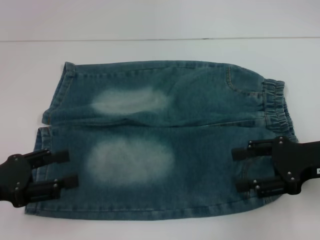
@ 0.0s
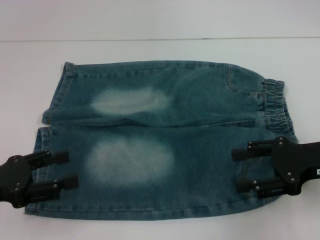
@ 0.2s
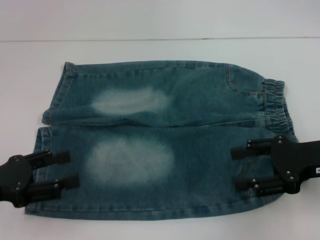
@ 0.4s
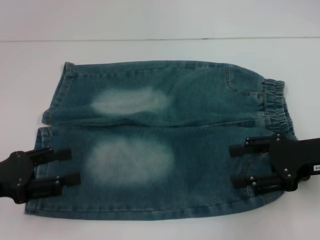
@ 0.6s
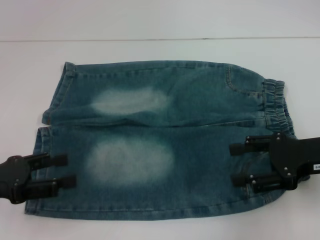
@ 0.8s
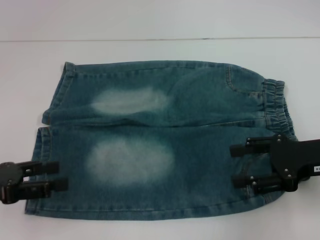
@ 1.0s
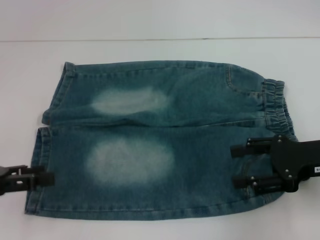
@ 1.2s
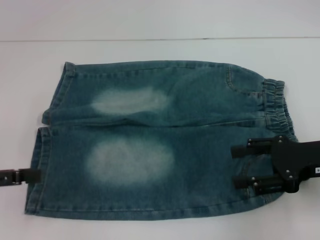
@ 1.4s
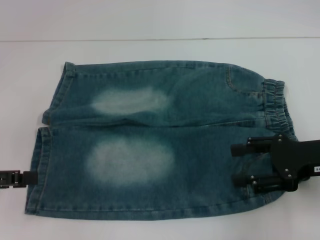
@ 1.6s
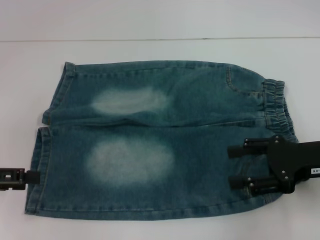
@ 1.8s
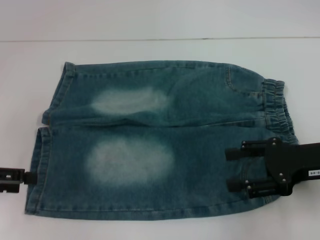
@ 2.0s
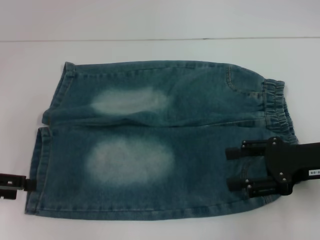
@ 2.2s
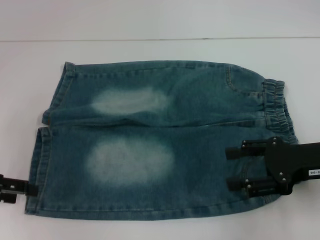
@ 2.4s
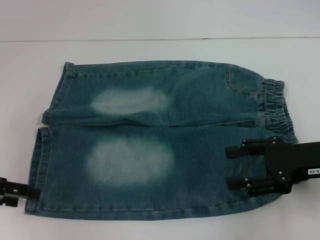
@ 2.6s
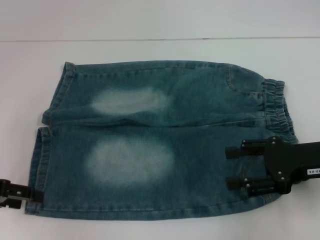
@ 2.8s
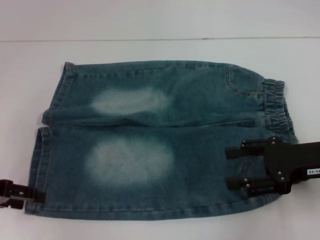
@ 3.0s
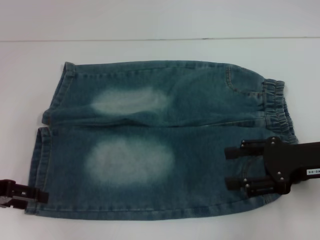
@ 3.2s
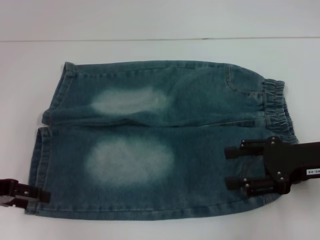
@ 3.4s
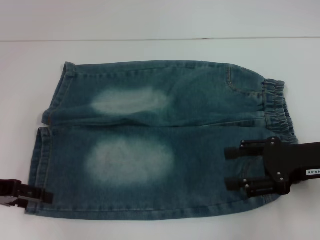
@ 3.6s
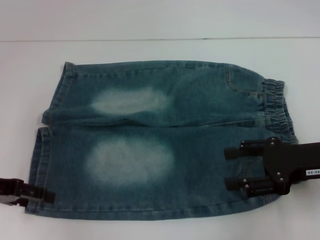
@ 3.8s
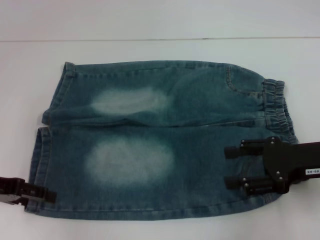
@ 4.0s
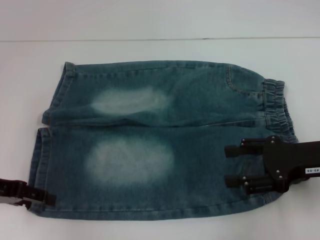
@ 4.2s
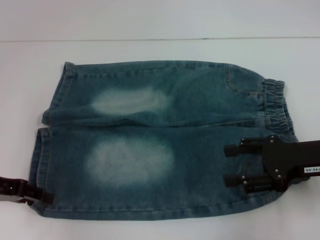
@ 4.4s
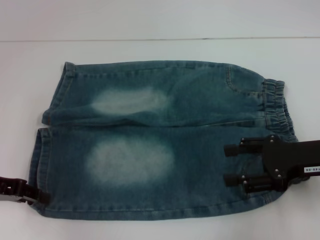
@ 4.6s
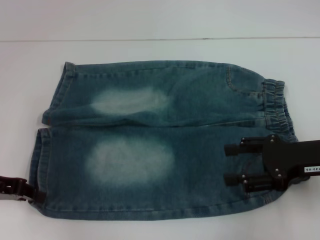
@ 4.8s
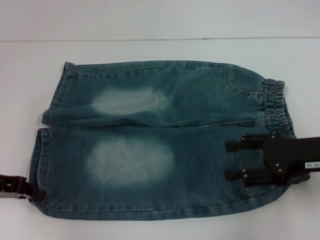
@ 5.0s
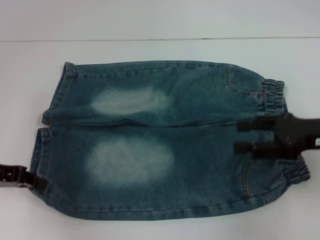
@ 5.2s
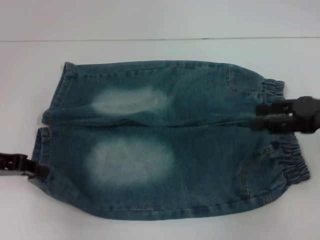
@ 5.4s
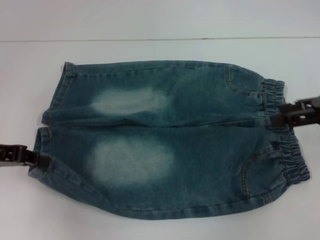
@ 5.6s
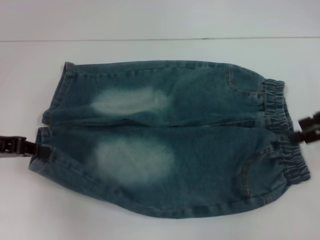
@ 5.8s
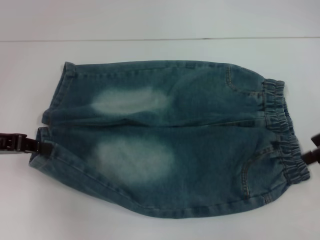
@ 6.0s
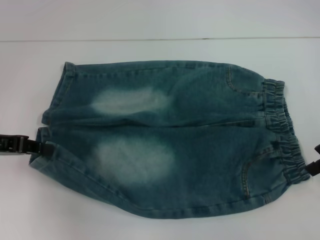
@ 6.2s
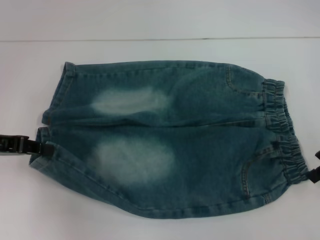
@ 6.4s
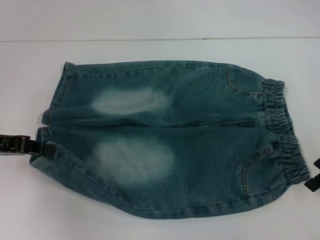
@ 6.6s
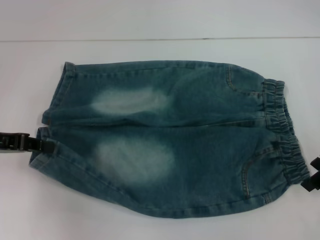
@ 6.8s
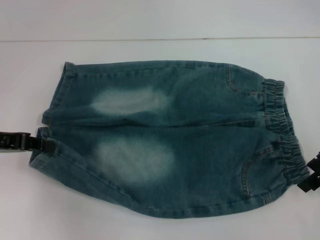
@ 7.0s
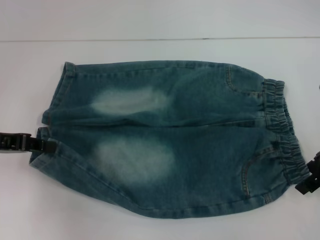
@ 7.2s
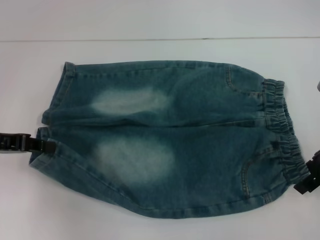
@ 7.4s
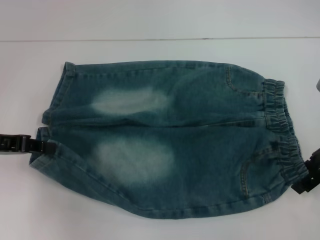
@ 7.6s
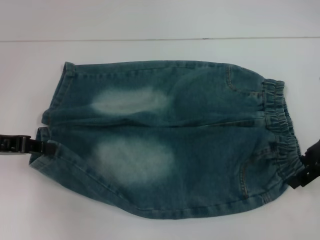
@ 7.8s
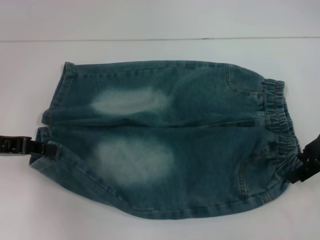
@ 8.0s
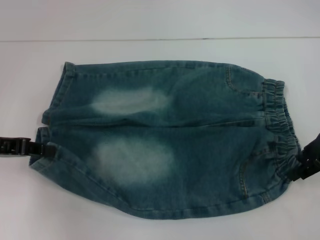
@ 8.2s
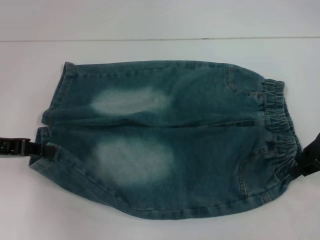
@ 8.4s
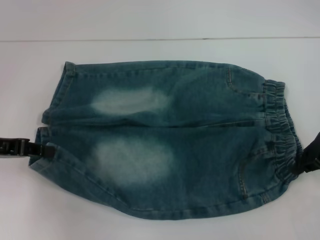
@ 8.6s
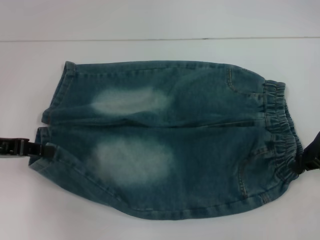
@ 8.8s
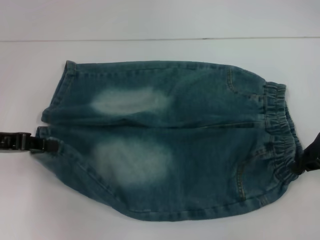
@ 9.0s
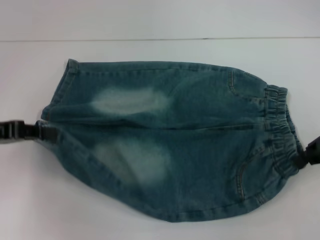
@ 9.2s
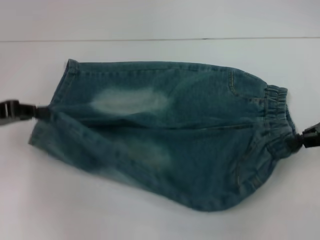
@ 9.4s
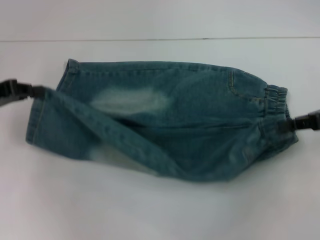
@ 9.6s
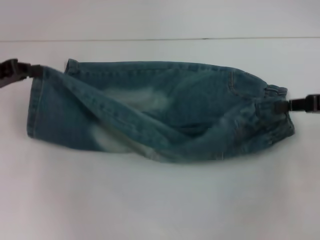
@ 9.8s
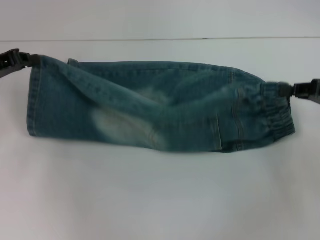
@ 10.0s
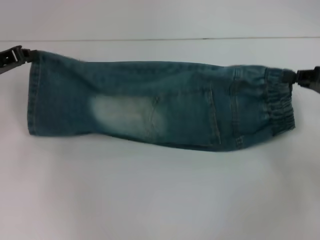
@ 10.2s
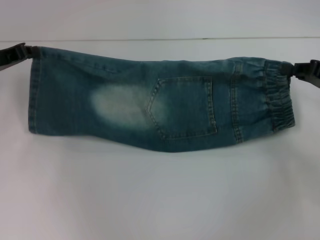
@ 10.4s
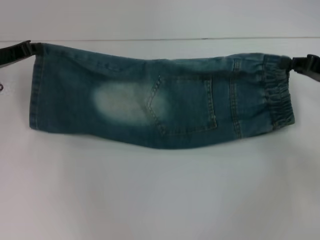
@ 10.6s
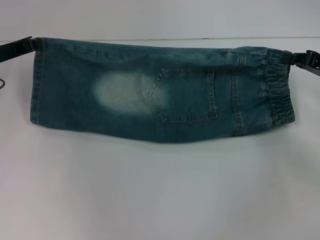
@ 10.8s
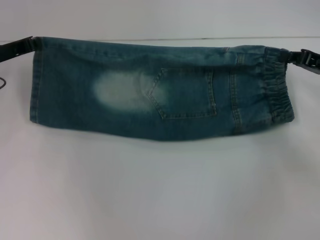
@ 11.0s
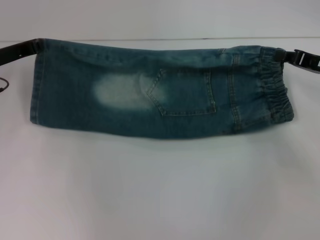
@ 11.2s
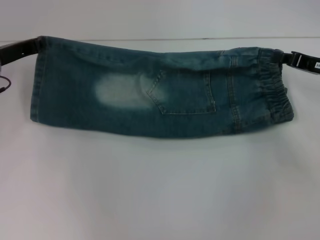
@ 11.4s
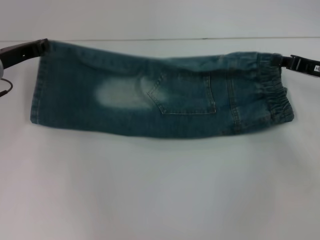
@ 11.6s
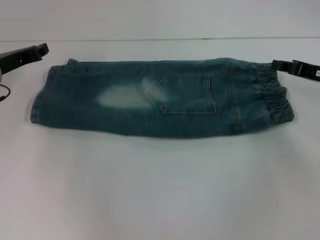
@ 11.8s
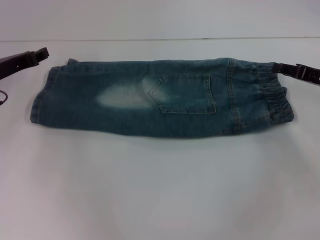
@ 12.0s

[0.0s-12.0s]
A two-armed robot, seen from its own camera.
Step, 0.0s to 5.0s: Grab the lower left pant leg with your left hand.
Step, 5.2s to 8.8s: Hold the lower right waistband with your right hand.
0.0s to 1.6s: The left gripper changes place by some 5 cm.
3.0s to 4.4s: The grippers stay close to where they were, moving slightly.
4.4s to 6.0s: The right gripper goes approximately 10 cm upward, to the right and forward. Meanwhile the left gripper closes.
6.0s to 7.6s: The right gripper ends up about 5 cm from where it was.
7.6s to 9.0s: The right gripper closes.
9.0s to 10.4s: The right gripper shifts approximately 5 cm to the right; the left gripper goes roughly 10 cm forward.
10.4s to 12.0s: The grippers stay close to where they were, moving slightly.

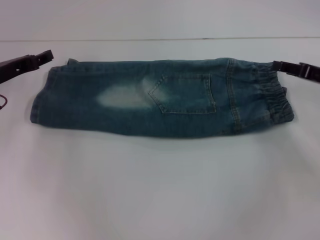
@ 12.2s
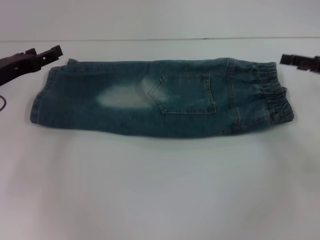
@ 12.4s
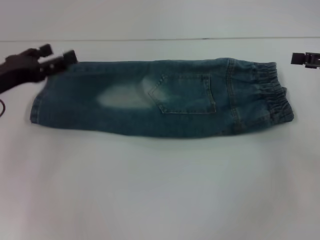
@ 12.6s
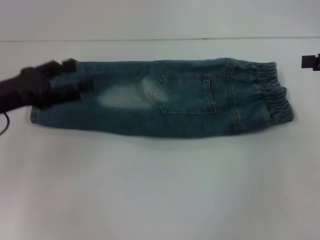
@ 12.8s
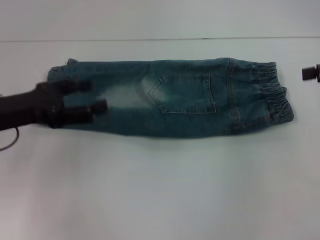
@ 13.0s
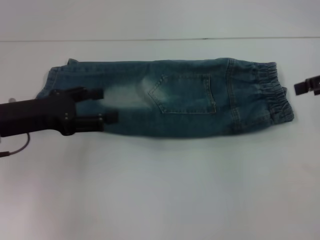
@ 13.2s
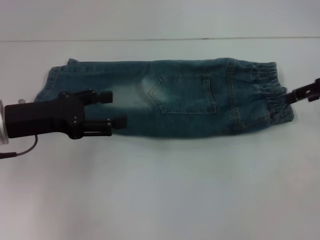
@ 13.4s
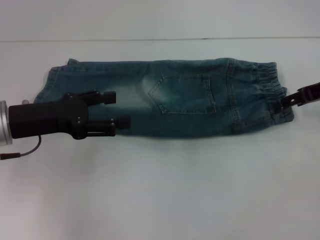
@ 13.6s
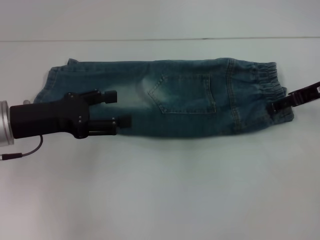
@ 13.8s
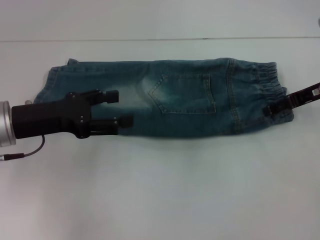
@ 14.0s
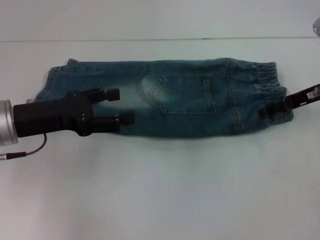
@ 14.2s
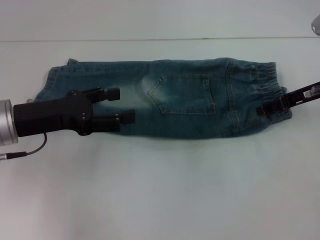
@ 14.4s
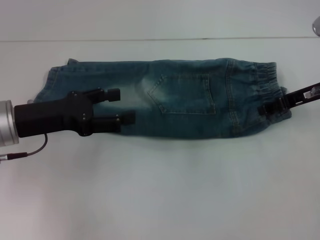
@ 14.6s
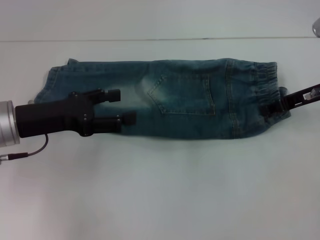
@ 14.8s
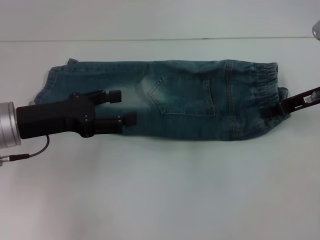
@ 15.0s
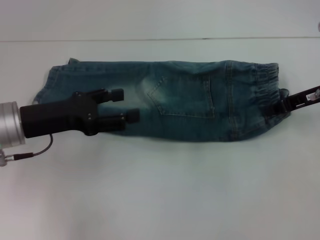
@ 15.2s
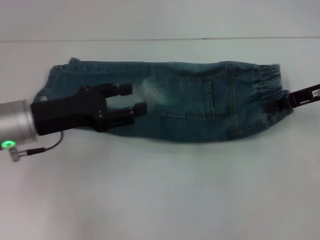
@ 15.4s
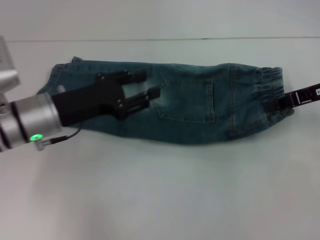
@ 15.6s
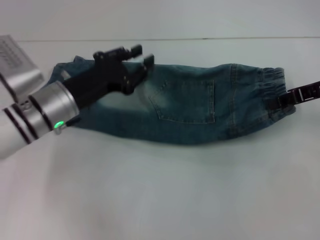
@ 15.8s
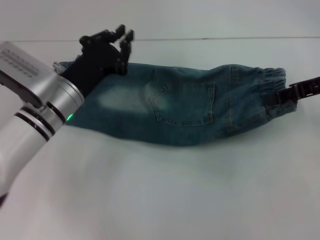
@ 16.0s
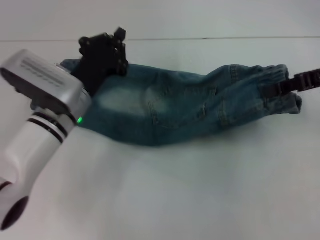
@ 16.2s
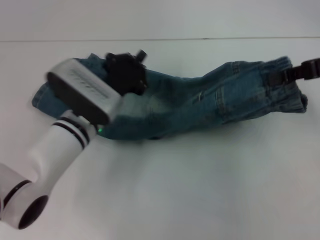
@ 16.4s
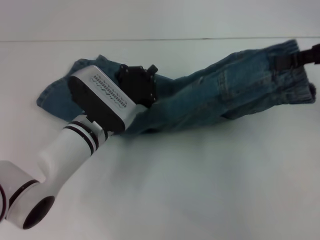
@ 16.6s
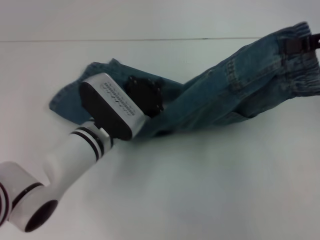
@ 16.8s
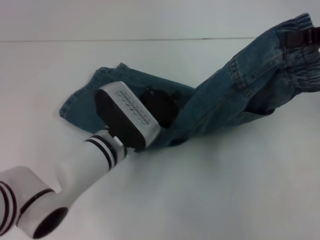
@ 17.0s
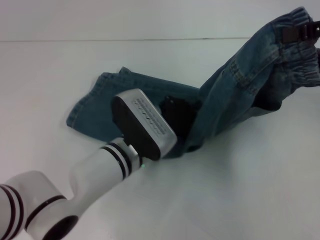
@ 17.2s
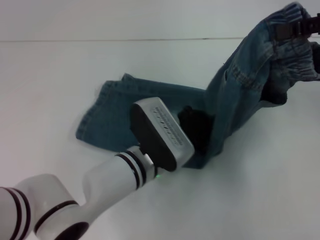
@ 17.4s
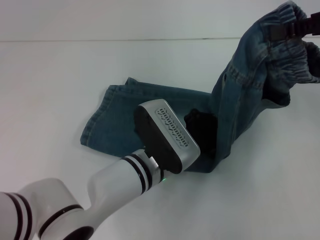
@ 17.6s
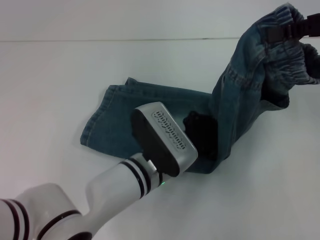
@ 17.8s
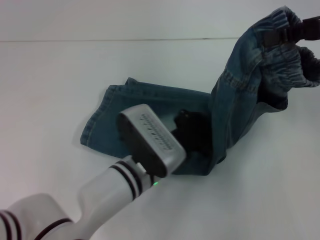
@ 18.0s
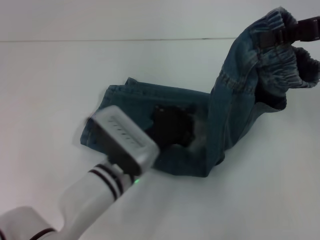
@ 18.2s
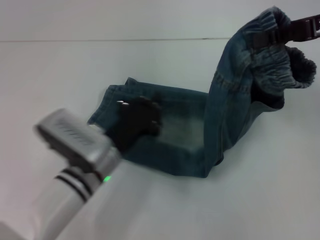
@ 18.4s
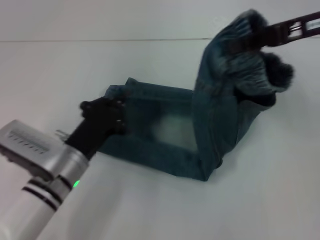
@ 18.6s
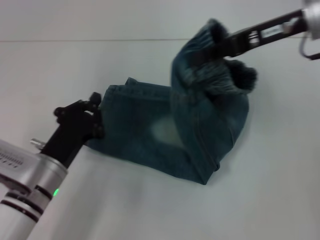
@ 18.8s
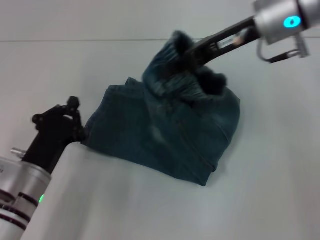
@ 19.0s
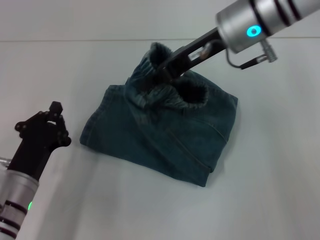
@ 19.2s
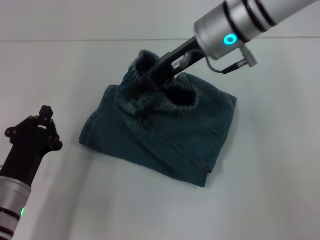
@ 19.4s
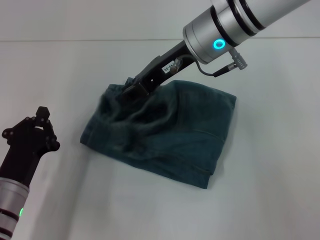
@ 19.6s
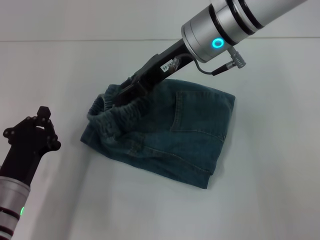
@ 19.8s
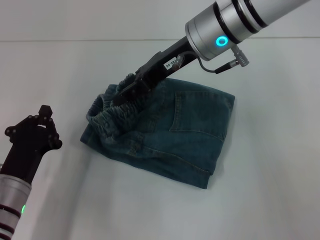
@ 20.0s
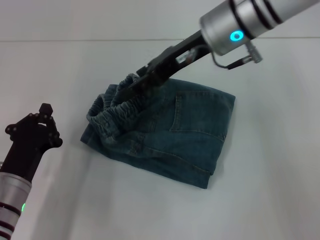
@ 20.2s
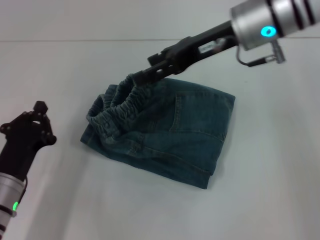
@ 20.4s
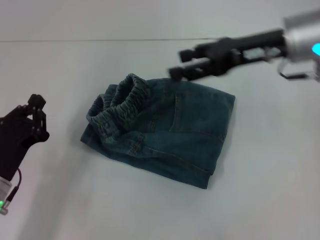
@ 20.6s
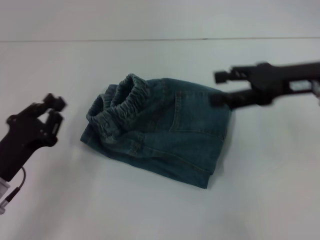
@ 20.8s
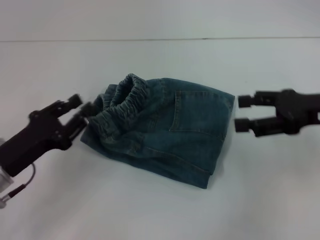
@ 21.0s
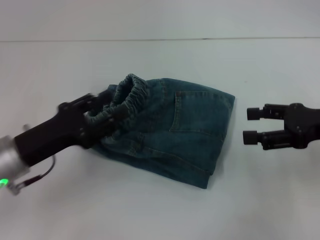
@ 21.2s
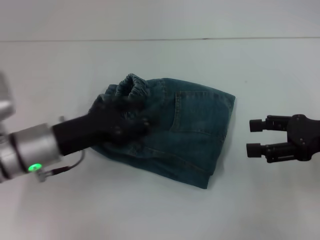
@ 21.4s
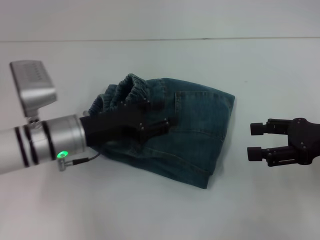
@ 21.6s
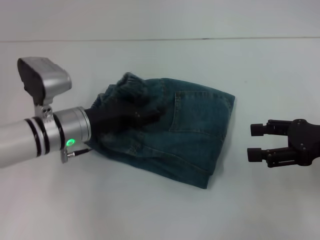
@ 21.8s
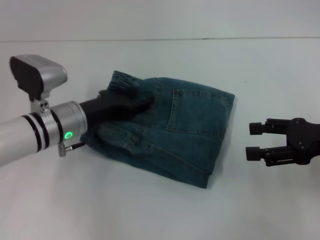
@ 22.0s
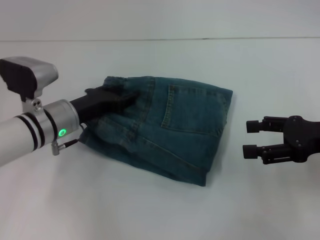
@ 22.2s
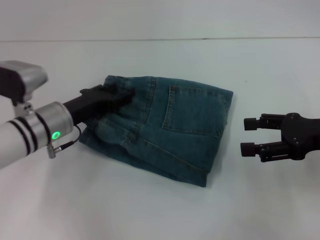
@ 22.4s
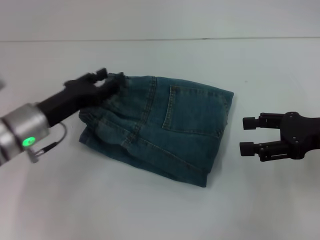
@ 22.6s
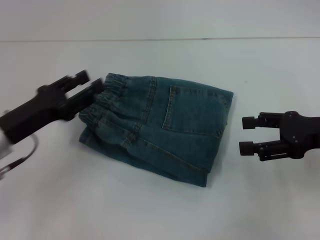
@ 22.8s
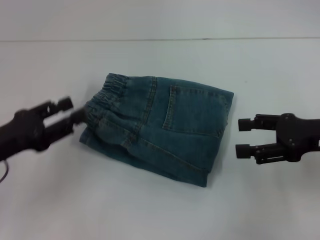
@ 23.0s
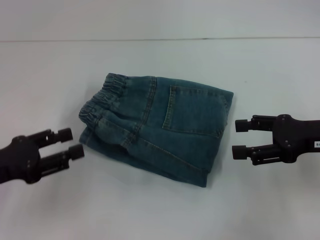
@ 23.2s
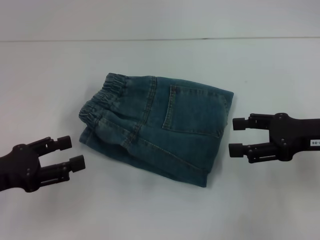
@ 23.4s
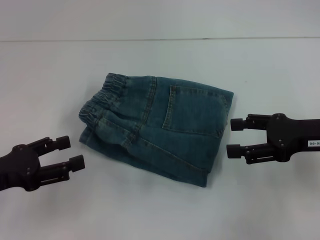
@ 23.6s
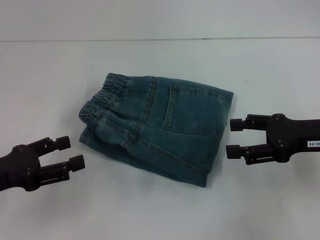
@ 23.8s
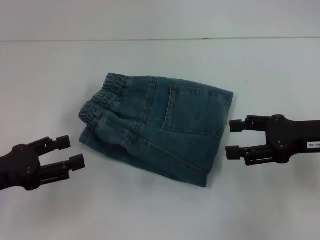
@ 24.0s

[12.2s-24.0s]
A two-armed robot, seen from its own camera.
Step, 12.4s to 15.0s: Grab the waistband with your right hand.
Step, 15.2s to 18.0s: Press the middle of the pants with your left hand.
Step, 18.2s to 20.6s: Fold to the left with your right hand.
Step, 20.8s to 22.8s: Adjust the pants with your left hand.
12.2s to 13.6s: The right gripper is displaced upward by about 5 cm, while the left gripper shifts about 10 cm backward, and opens up.
13.6s to 15.2s: The right gripper closes its fingers.
15.2s to 16.6s: The right gripper goes some 10 cm upward. The left gripper goes approximately 15 cm to the right and downward, and closes its fingers.
16.6s to 18.2s: The left gripper is displaced backward by roughly 5 cm.
18.2s to 19.6s: Both grippers travel together to the left, roughly 20 cm.
19.6s to 21.0s: The left gripper heads upward, covering approximately 5 cm. Meanwhile the right gripper goes some 25 cm to the right and backward, and opens.
21.0s to 22.6s: The left gripper heads forward, covering some 10 cm, and opens up.
22.6s to 24.0s: The left gripper heads backward and to the left, covering roughly 15 cm.
